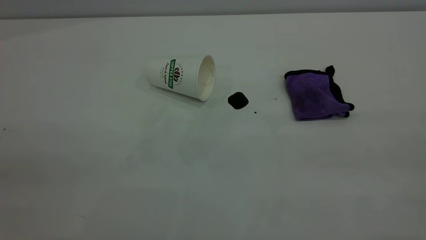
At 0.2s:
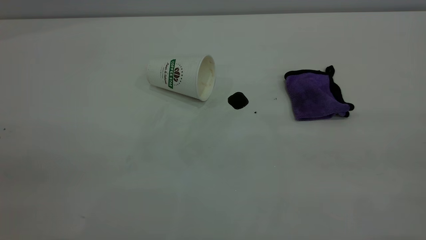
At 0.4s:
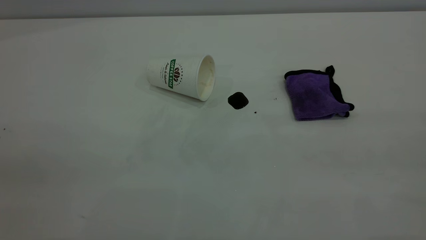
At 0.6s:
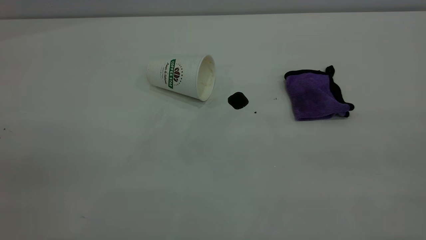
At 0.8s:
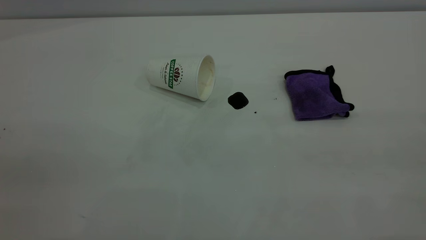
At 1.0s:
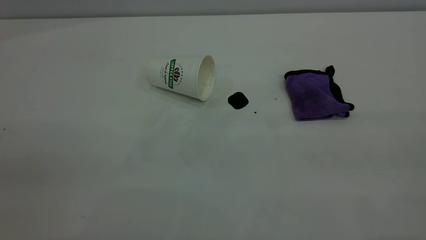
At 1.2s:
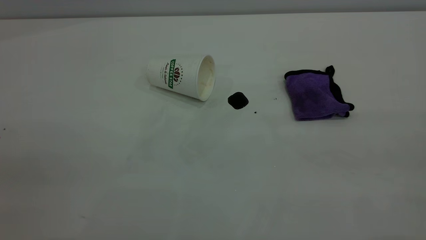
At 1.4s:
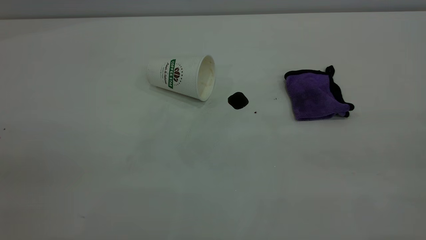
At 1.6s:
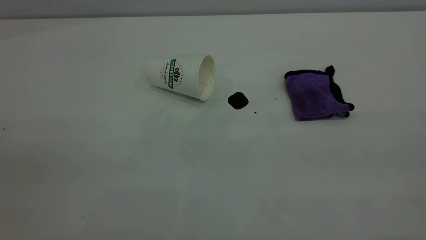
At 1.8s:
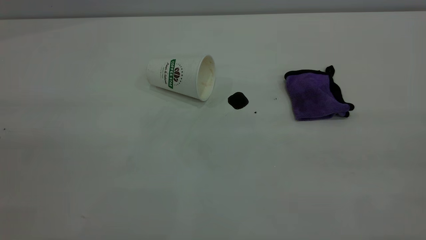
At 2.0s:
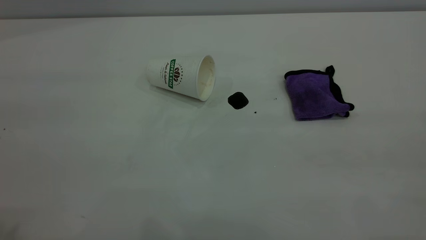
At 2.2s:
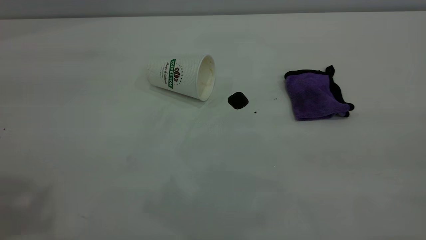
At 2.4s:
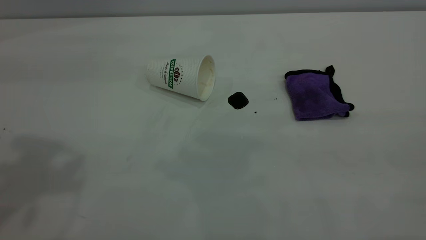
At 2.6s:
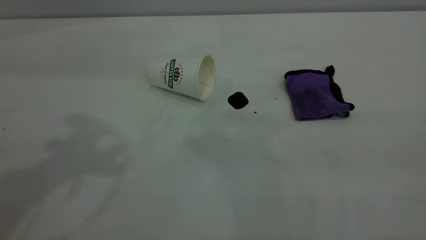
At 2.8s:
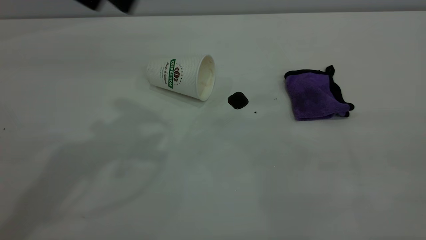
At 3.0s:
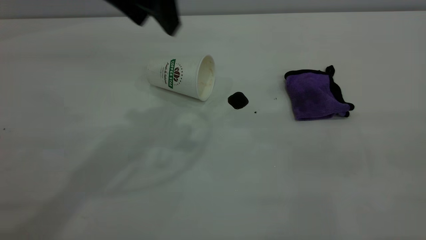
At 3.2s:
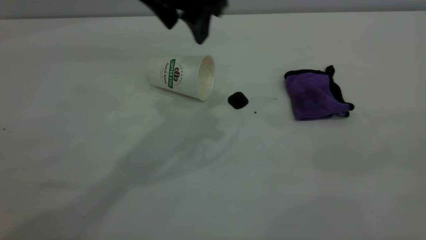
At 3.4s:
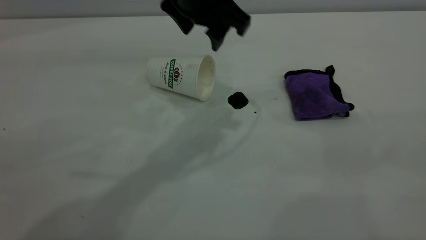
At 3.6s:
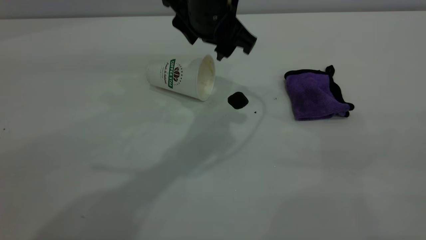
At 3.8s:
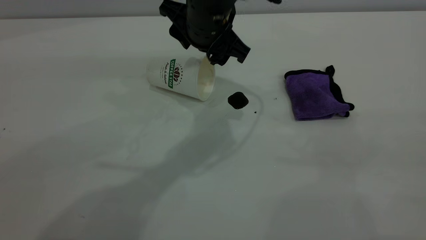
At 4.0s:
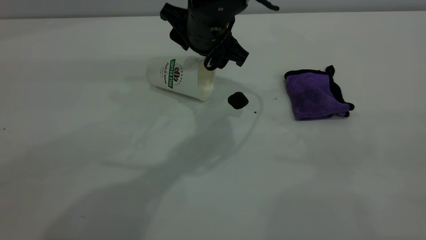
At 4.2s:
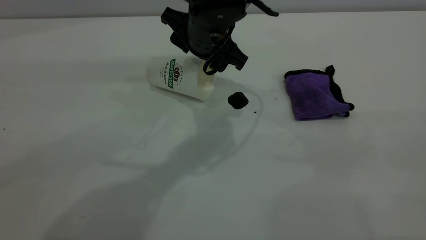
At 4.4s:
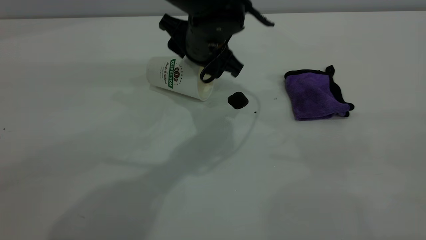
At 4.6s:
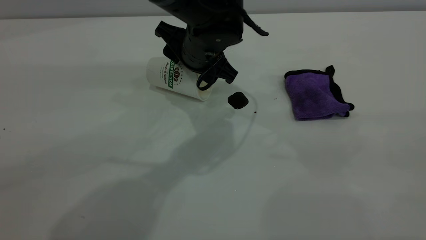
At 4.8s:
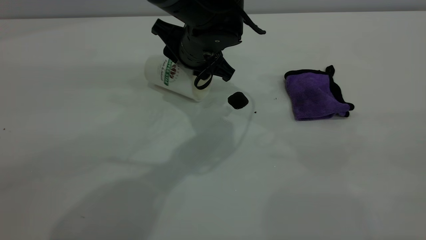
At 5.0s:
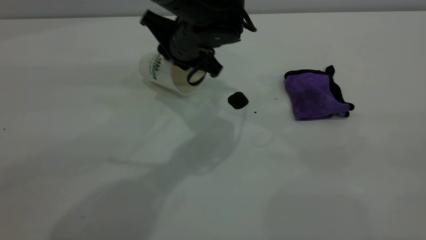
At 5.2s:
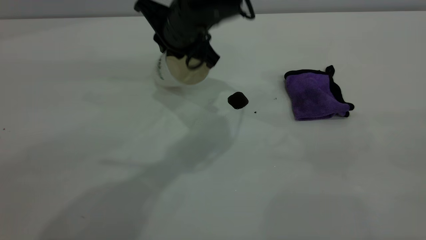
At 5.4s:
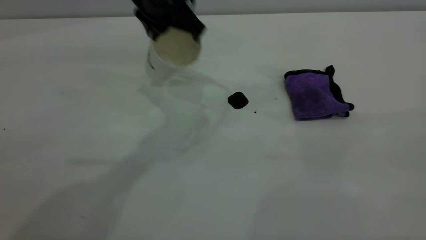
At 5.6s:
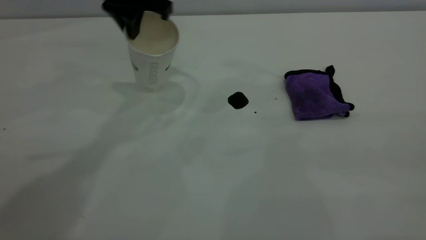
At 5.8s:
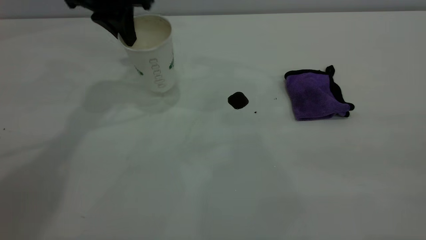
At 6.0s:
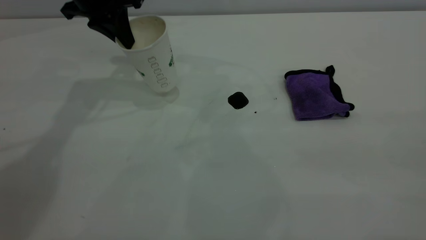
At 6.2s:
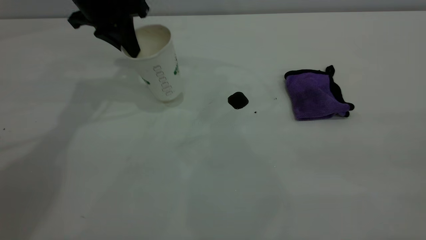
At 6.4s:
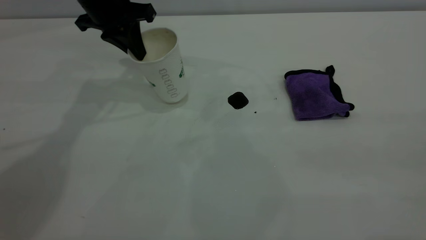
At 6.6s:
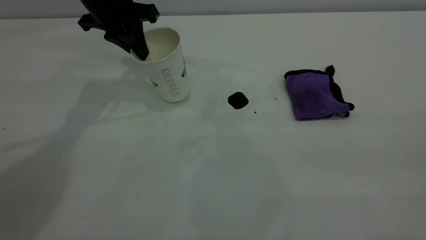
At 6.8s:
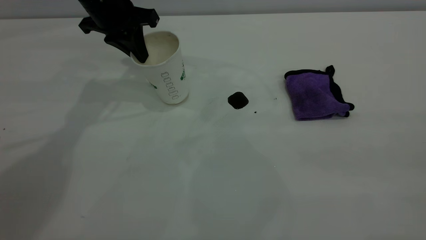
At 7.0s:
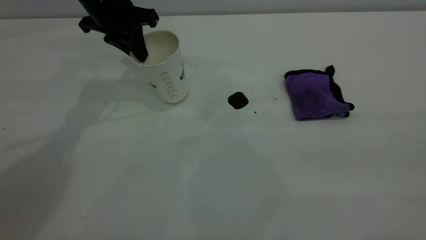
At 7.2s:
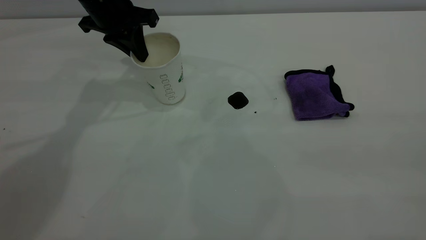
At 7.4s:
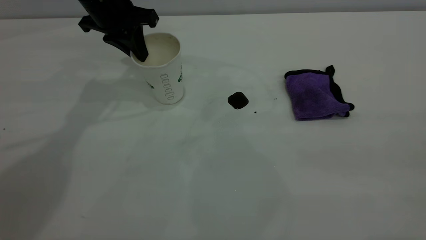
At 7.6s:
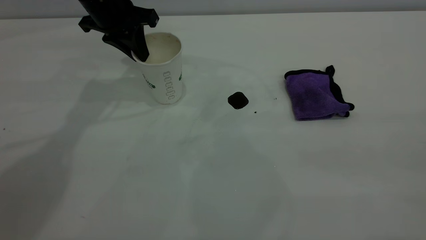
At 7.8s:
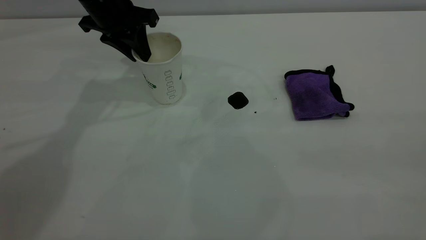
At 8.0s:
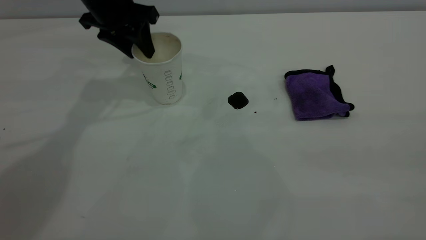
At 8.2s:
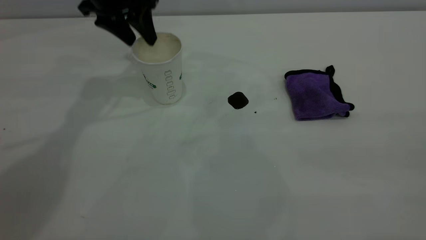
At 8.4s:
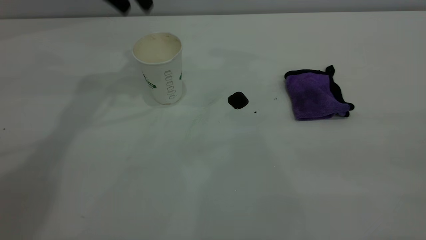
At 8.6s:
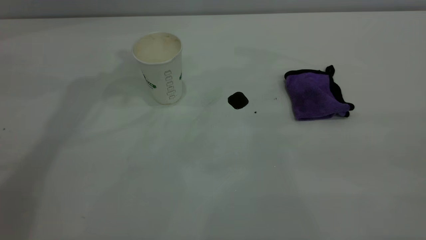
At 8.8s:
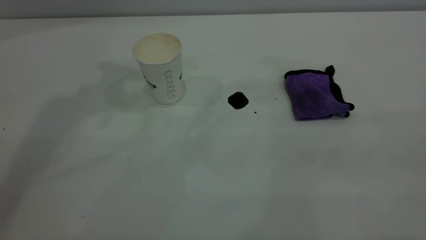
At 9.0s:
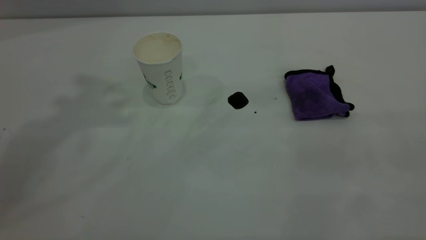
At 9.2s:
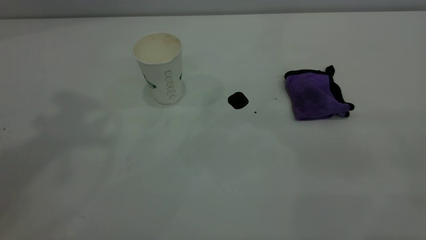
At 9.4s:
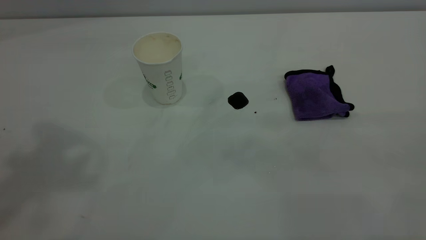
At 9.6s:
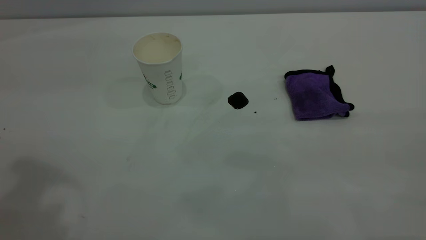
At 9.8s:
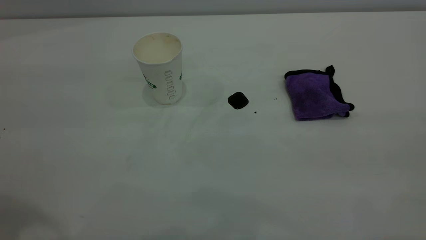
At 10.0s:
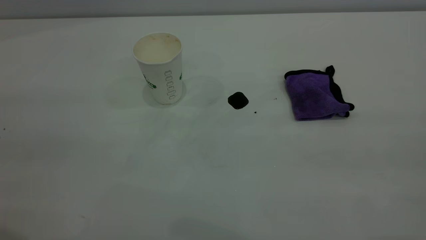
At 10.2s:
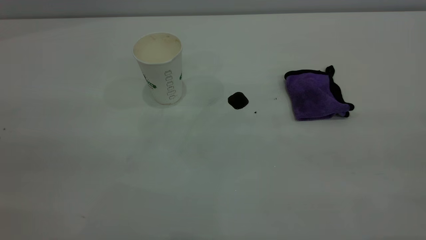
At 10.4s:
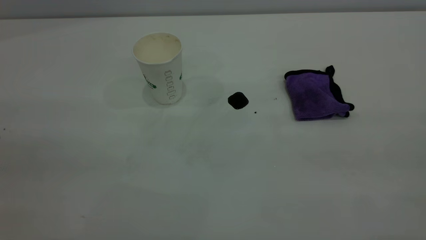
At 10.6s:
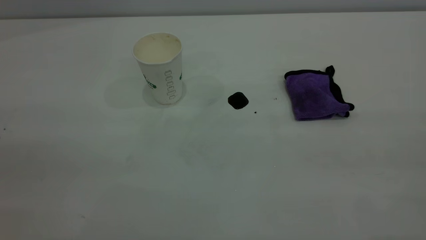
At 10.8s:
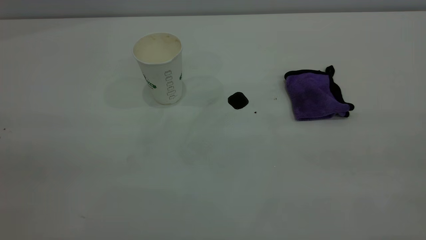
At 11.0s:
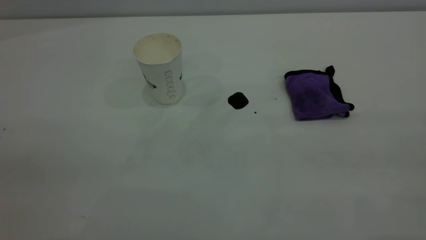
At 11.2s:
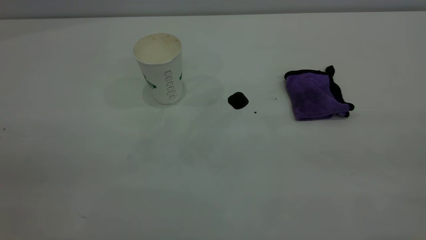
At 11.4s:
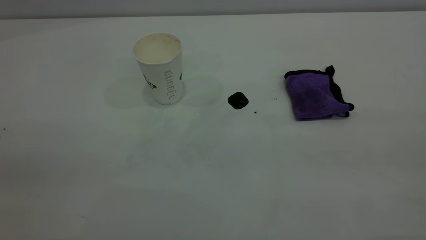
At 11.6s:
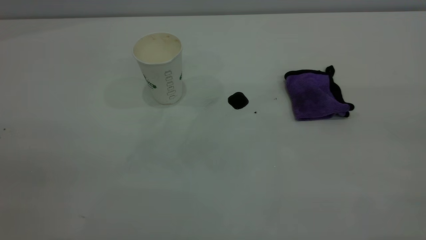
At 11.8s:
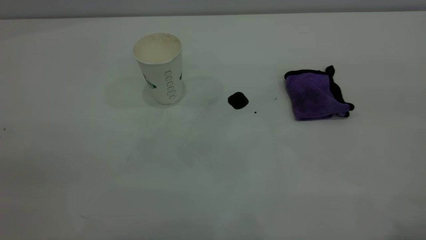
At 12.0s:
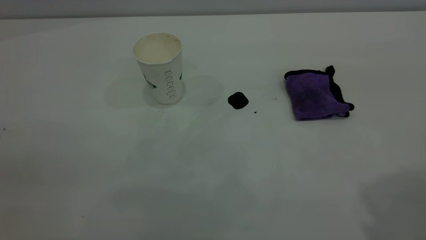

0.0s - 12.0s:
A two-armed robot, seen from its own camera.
Task of the whole recording: the left gripper pick up the fallen cup and place it upright, the right gripper grasp the purple rag and wipe the coffee stain on the table, the right gripper put the purple rag back in its original position.
Step, 0.0s - 8.0s: Stand the paper cup upright.
1.6s - 3.0s: The left gripper goes roughly 40 cm forward and to the right.
3.0s - 4.4s: The left gripper travels downward and to the right by approximately 15 cm.
4.4s - 6.0s: The left gripper is displaced to the left by some 20 cm, and closes.
6.0s - 7.6s: The grippers make only small movements.
7.6s - 9.0s: The left gripper travels upward by about 35 cm, and opens up.

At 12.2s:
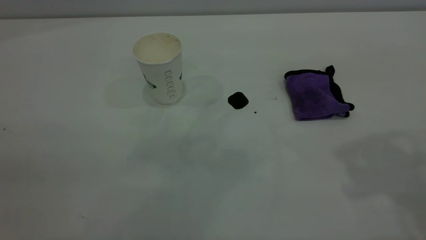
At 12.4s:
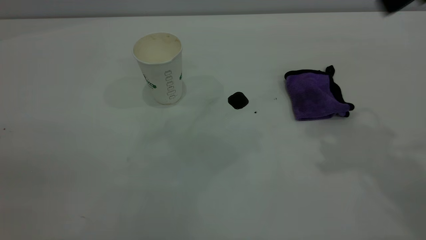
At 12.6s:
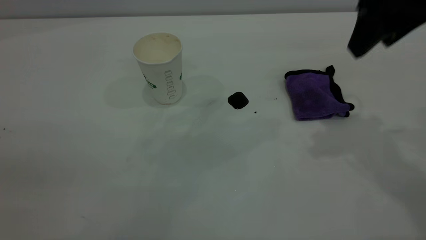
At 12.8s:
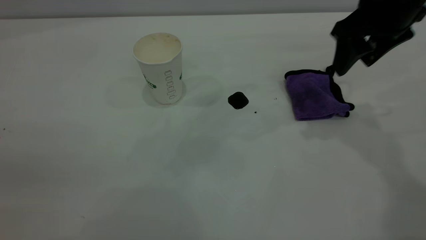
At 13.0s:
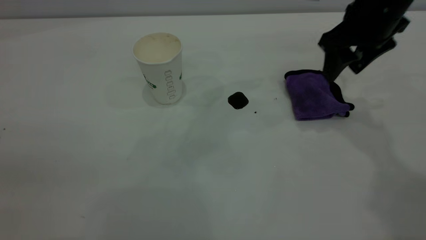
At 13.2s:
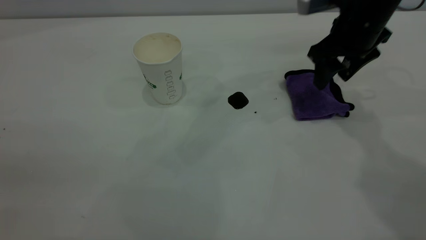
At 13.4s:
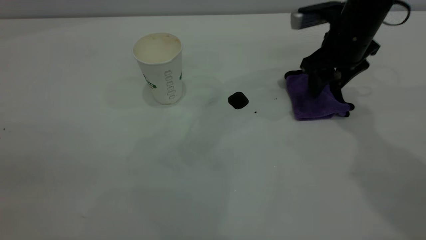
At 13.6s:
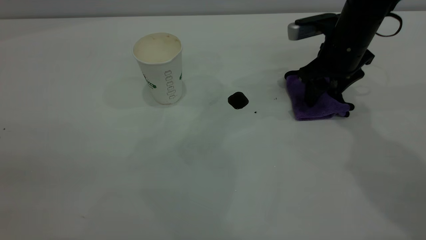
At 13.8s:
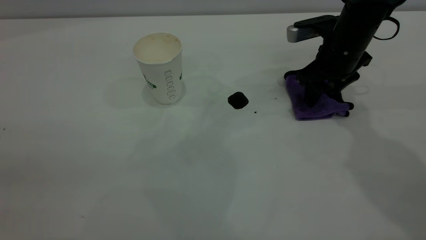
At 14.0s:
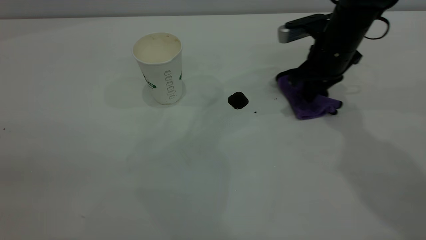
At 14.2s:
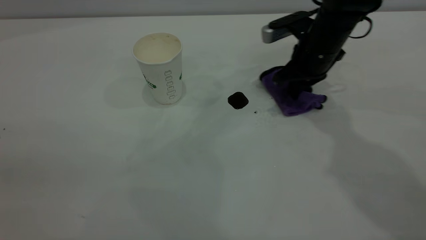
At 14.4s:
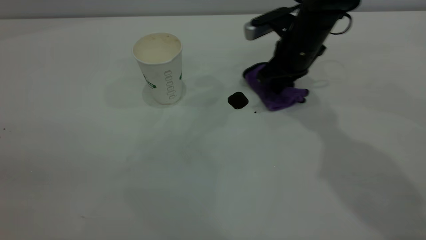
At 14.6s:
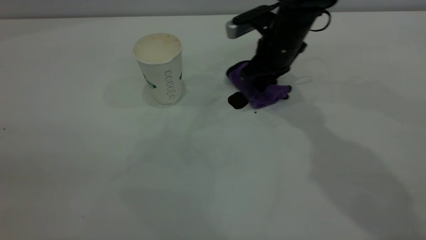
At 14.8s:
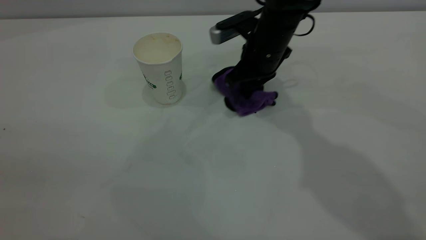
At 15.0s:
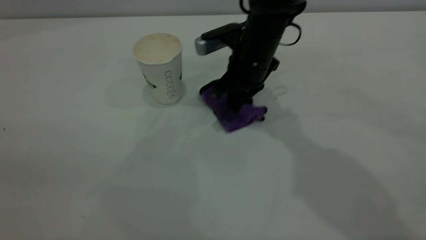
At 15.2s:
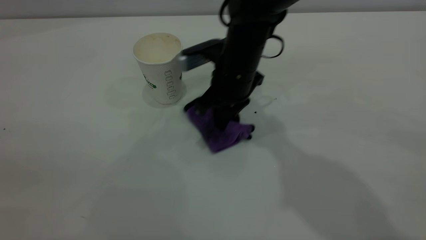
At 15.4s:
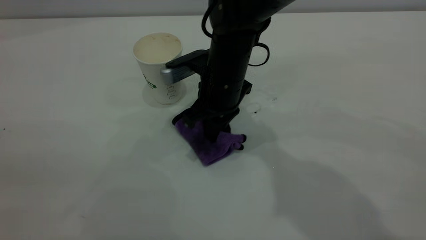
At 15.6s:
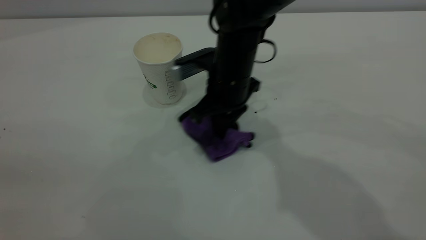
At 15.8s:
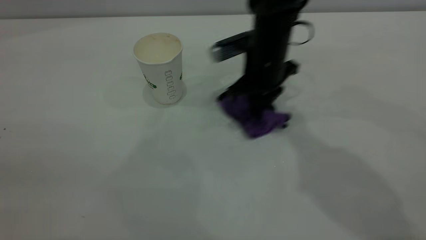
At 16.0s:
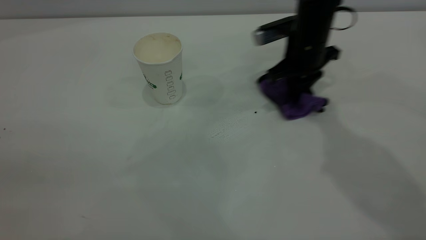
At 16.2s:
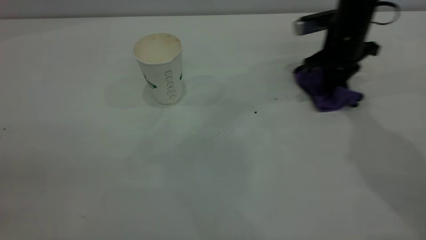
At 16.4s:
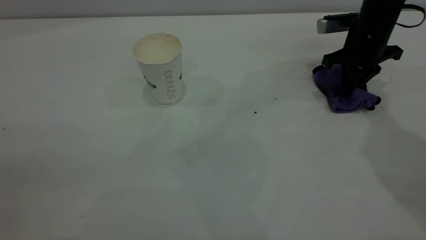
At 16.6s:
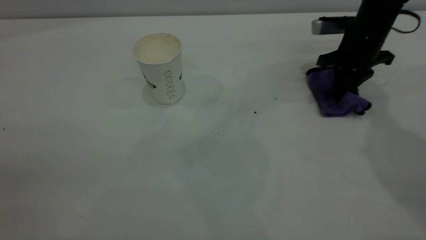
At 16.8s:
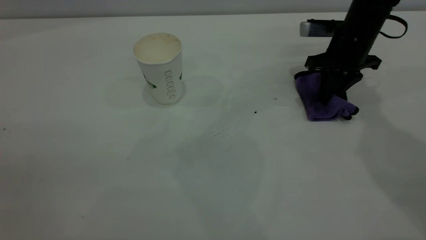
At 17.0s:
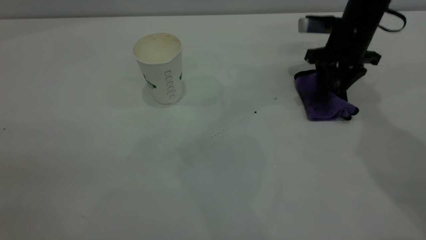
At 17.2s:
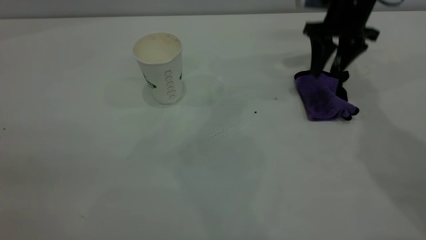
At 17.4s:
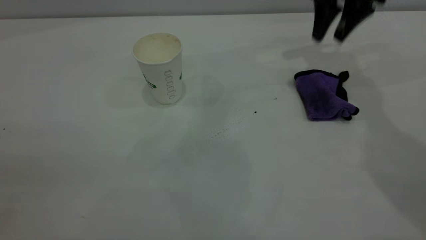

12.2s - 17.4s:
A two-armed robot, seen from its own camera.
Task of the whole recording: the left gripper pick up the fallen cup and place it upright, the right gripper grasp the purple rag and wipe the coffee stain on the table, the right gripper put the purple rag back in its original position.
Step, 12.2s - 17.2s: Wipe the stains off the table with a rag.
12.2s - 14.0s: The right gripper shifts roughly 30 cm downward and forward, and closes up.
14.0s - 15.6s: The right gripper travels to the left by roughly 15 cm.
15.6s - 17.4s: The right gripper goes about 25 cm to the right, upward and forward, and opens up.
